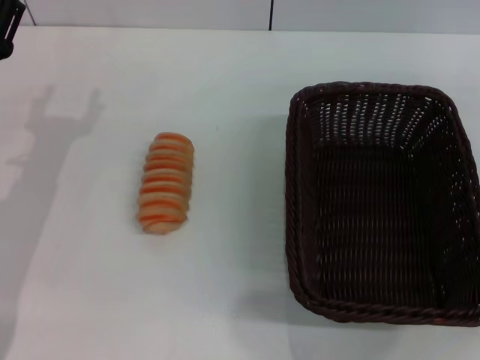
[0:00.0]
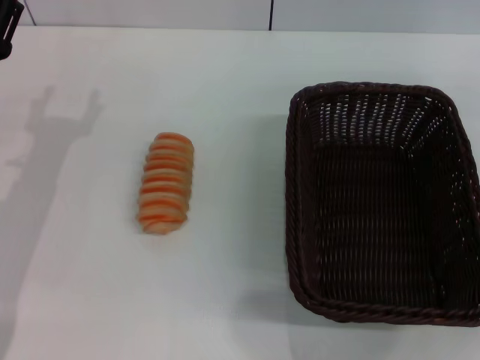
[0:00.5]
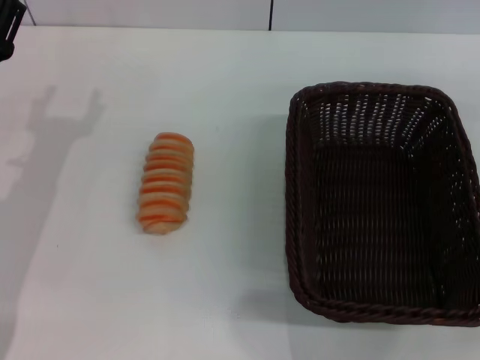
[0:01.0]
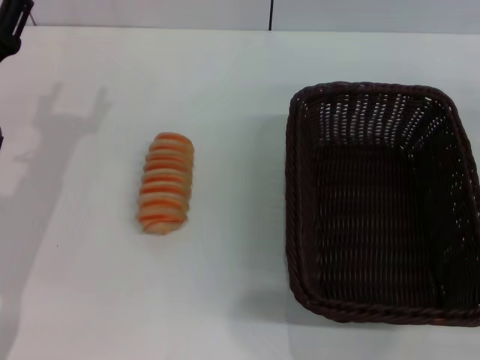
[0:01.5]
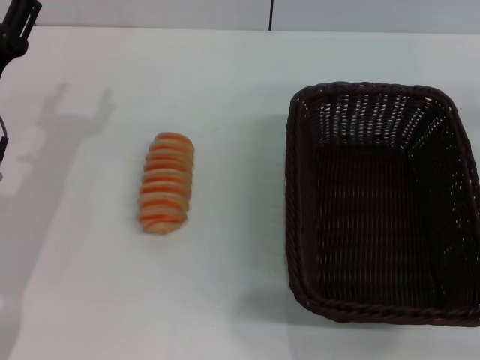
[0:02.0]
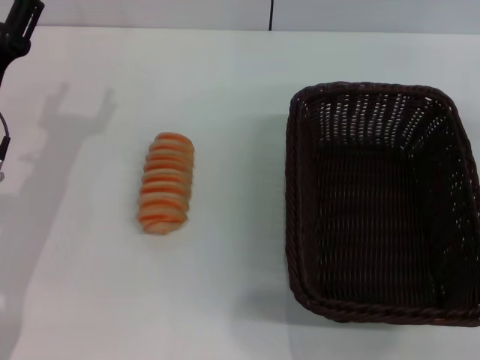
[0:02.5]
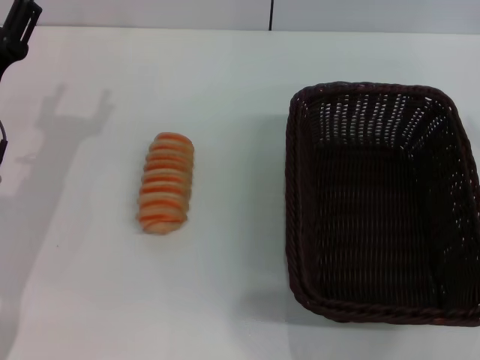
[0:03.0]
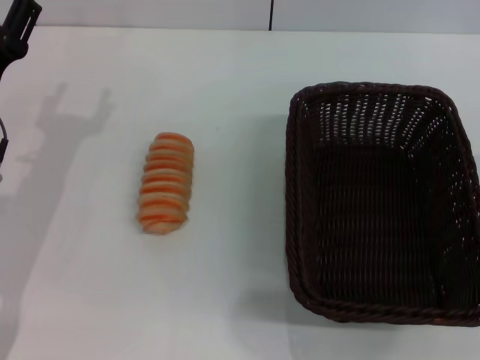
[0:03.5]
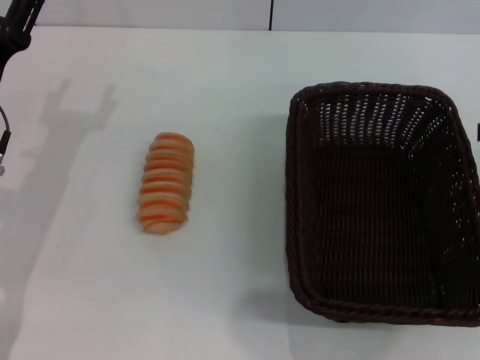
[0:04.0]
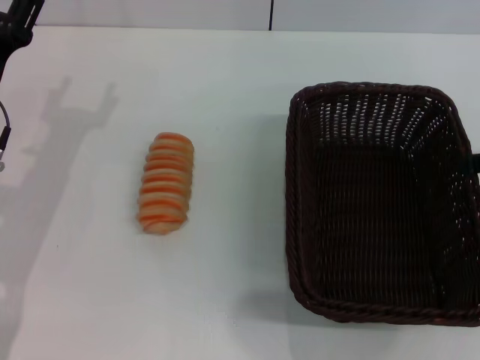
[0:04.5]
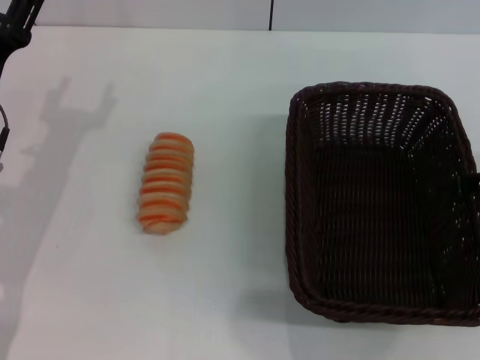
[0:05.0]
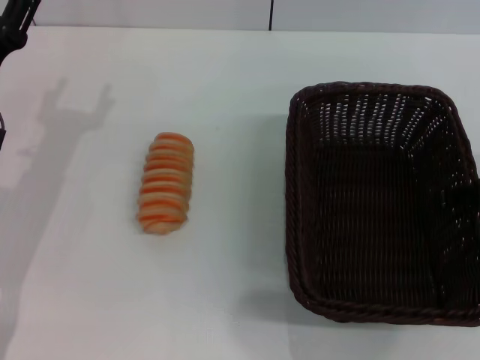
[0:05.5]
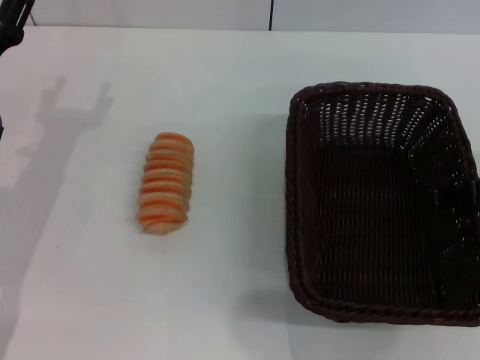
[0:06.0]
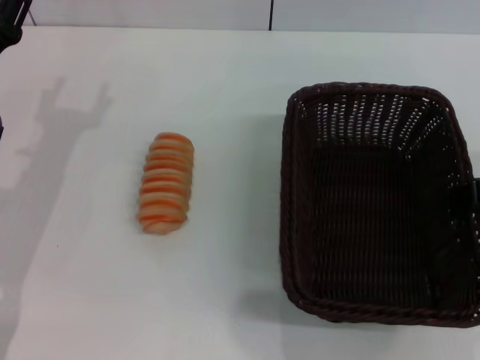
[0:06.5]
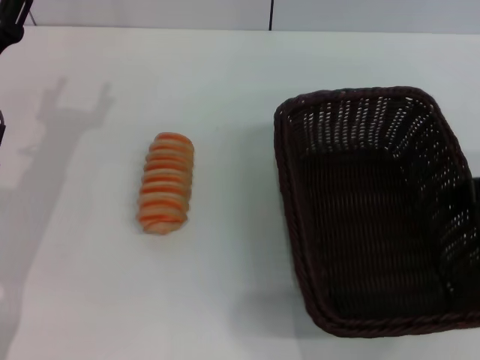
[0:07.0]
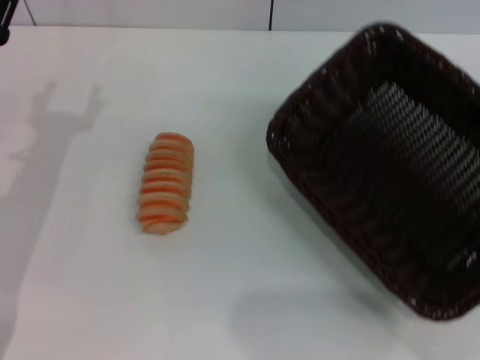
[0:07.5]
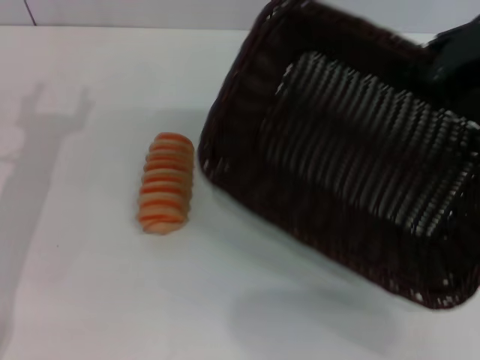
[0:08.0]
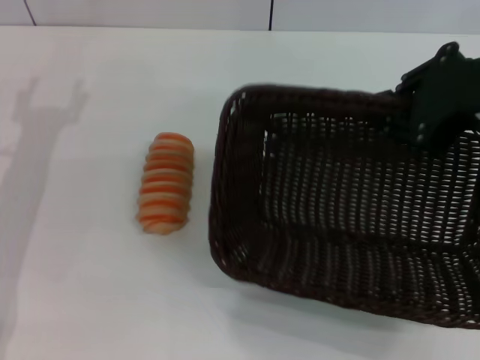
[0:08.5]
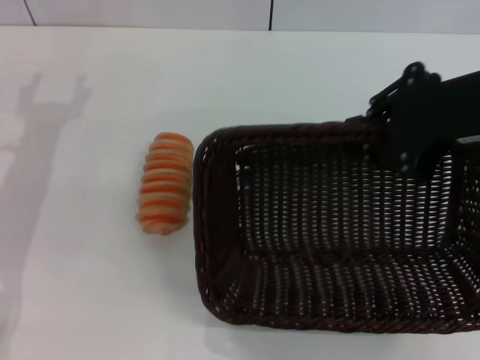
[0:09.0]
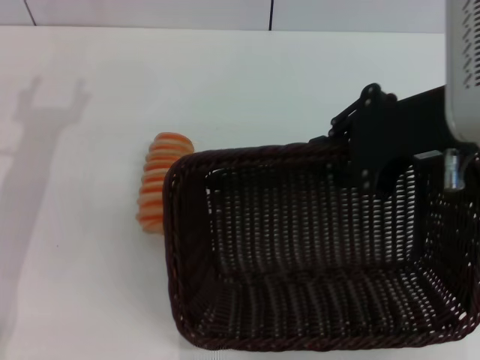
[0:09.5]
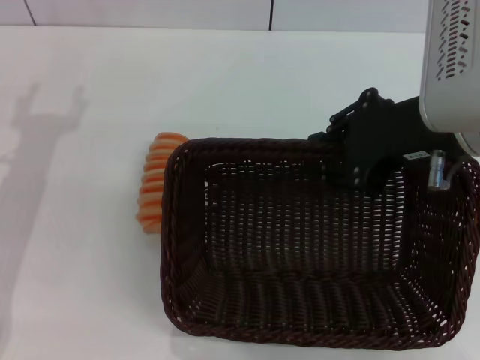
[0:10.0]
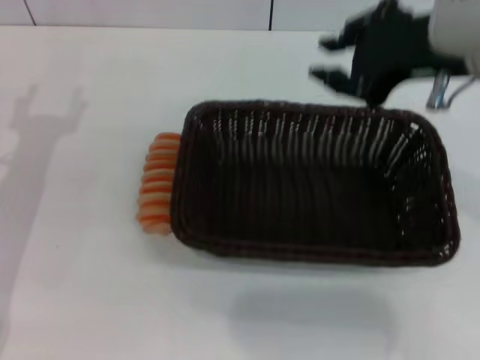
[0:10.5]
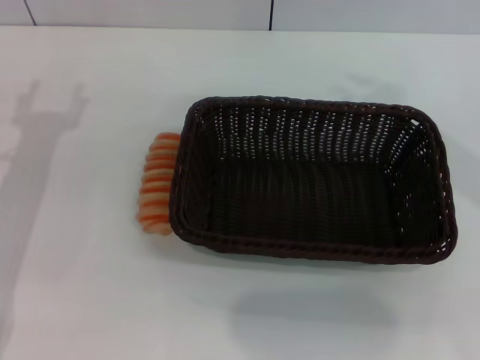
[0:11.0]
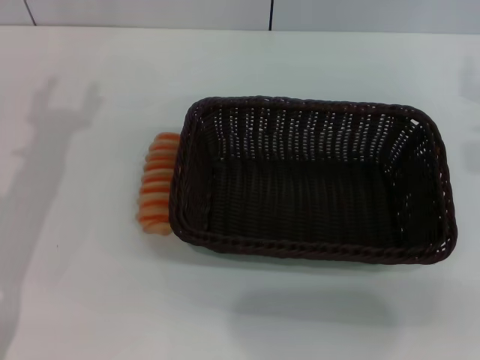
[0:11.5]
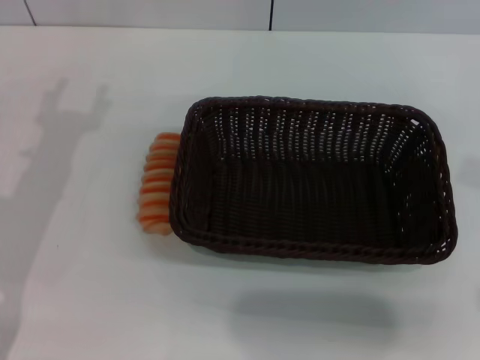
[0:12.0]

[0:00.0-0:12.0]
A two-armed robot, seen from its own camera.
Step, 0:00.0 to 0:07.5: Pick up the dark basket with the right gripper.
Step, 0:08.0 to 0:10.5: Place the dark basket in the center of view with the right gripper.
0:06.0 to 0:08.0: The right gripper is displaced upward and to the left by approximately 10 cm, and closes its fingers.
0:08.0 to 0:10.0: The right gripper heads to the left, covering roughly 5 cm.
0:10.0 to 0:12.0: The right gripper travels to the right by approximately 10 cm.

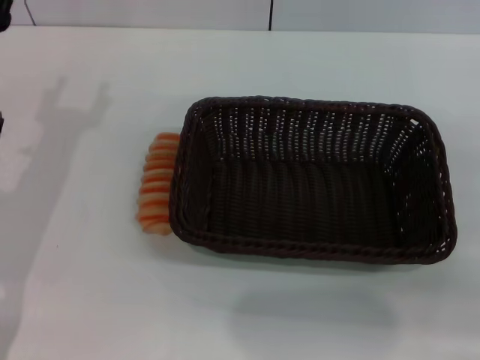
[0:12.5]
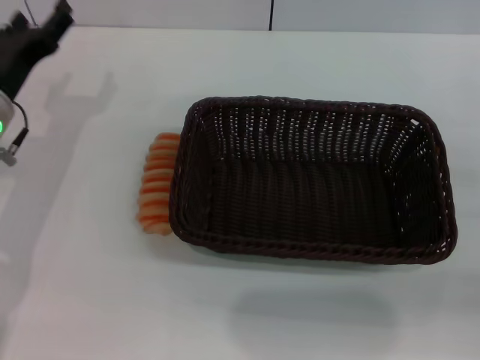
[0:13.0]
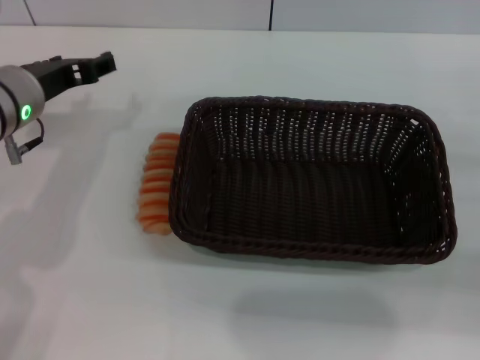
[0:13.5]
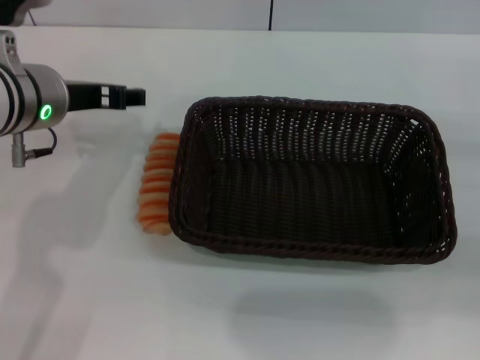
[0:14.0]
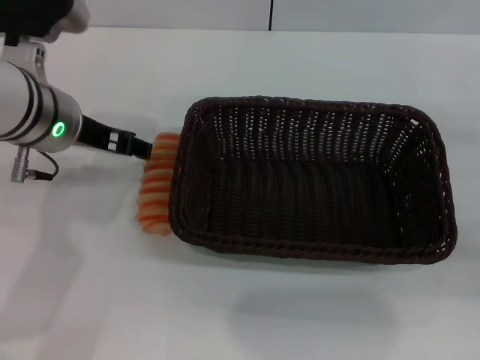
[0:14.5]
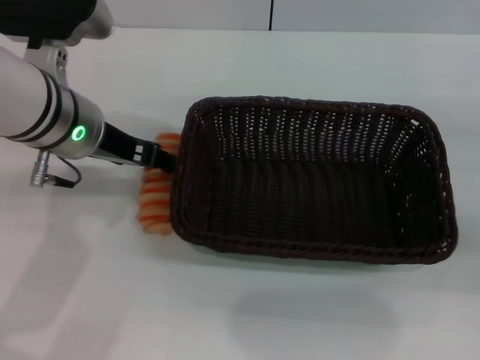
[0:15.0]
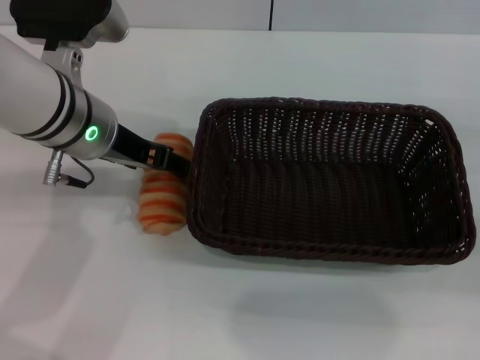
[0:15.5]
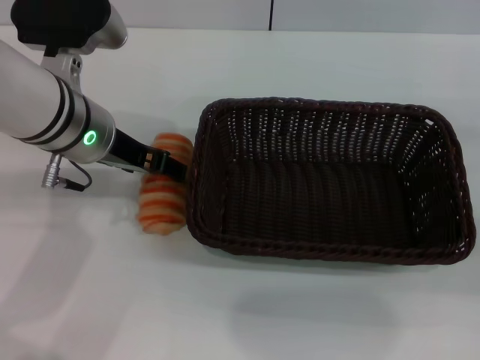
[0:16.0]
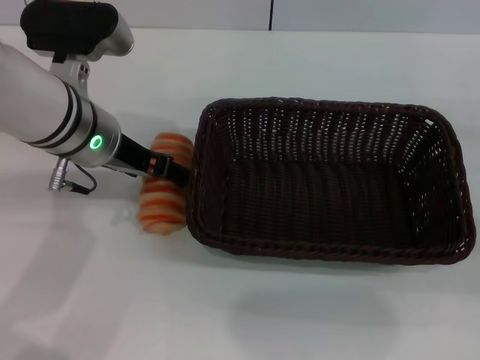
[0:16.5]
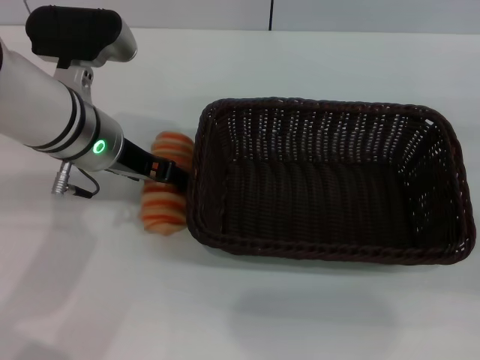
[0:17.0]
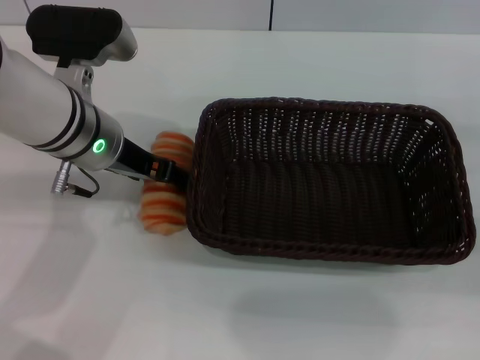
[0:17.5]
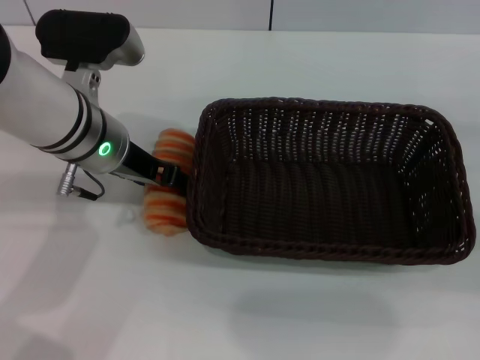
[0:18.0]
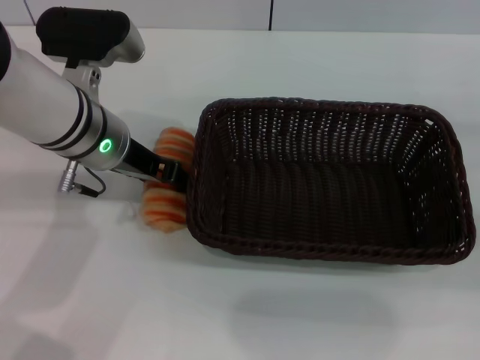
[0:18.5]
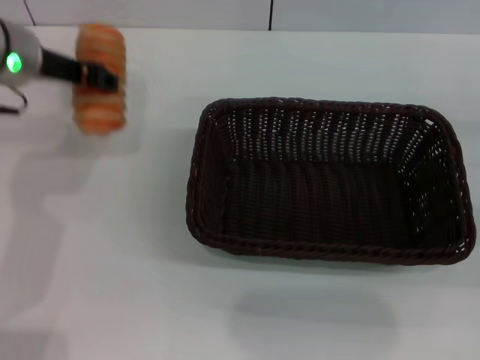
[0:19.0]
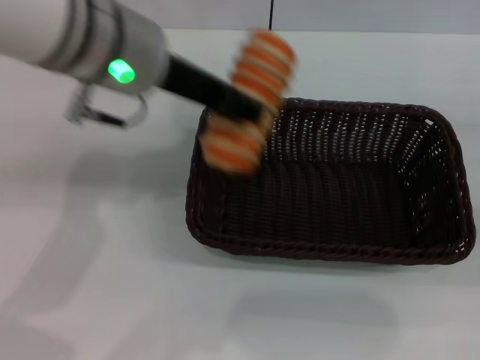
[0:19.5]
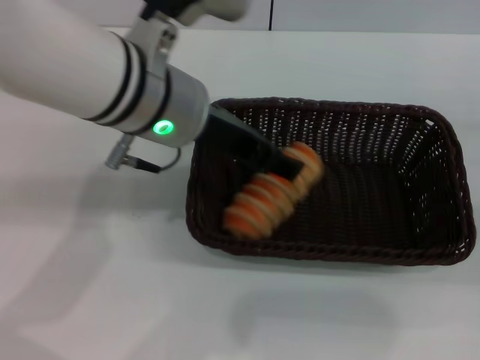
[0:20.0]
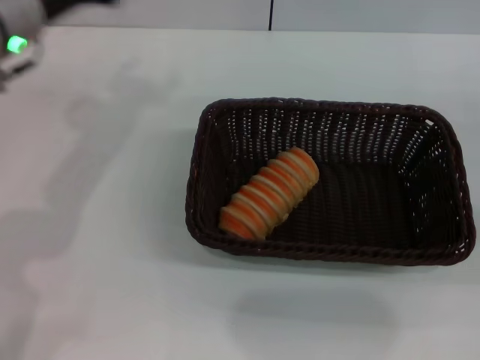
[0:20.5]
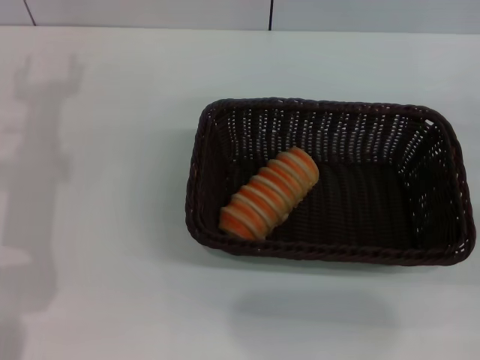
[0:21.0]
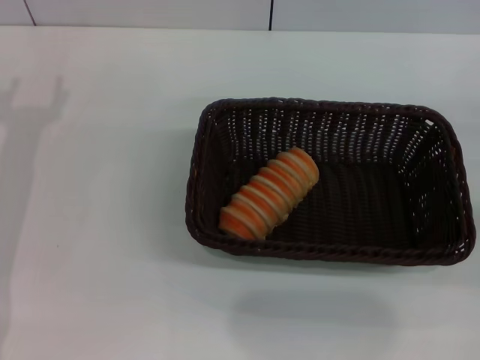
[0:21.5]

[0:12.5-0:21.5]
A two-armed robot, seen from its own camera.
Step, 0:12.5 to 0:18.5: Pick up the long bread with the left gripper.
Step, 0:19.0 to 0:20.0: Place the long bread into the dark basket with the left gripper.
0:12.5 to 0:14.5: The left gripper is displaced to the right and upward by approximately 10 cm.
0:14.5 to 0:17.0: The grippers stay close to where they were, moving slightly.
0:17.0 to 0:19.5: The right gripper opens up. Meanwhile the left gripper moves upward, roughly 10 cm, and closes.
0:19.5 to 0:21.5: The left gripper moves to the left and downward, about 25 cm, and opens its fingers.

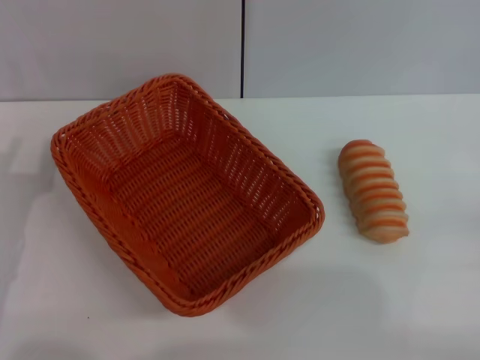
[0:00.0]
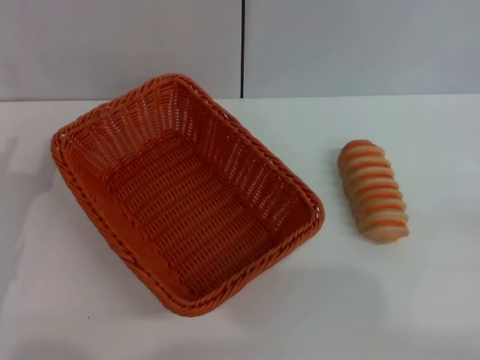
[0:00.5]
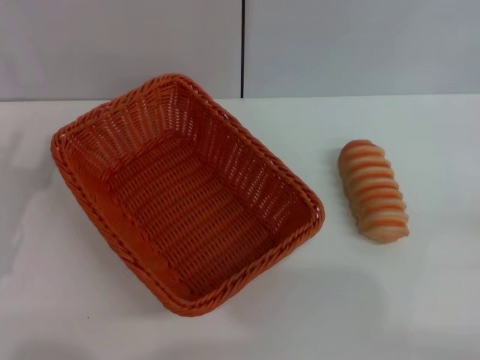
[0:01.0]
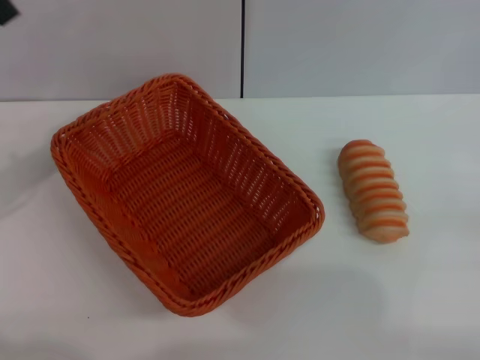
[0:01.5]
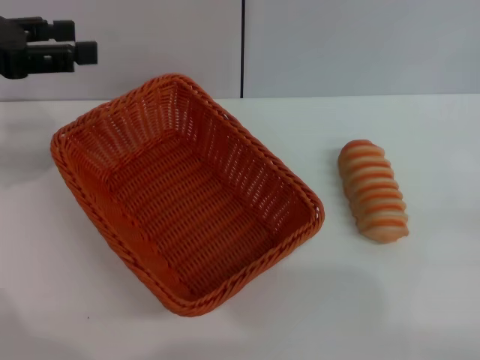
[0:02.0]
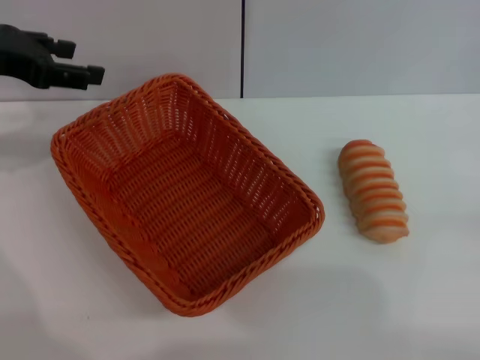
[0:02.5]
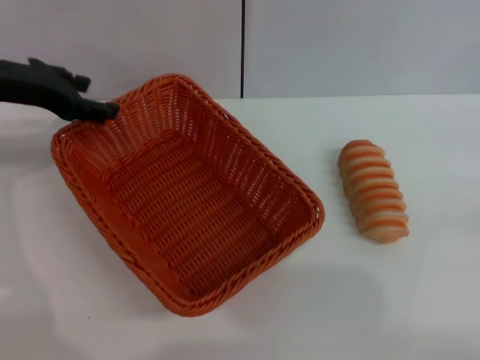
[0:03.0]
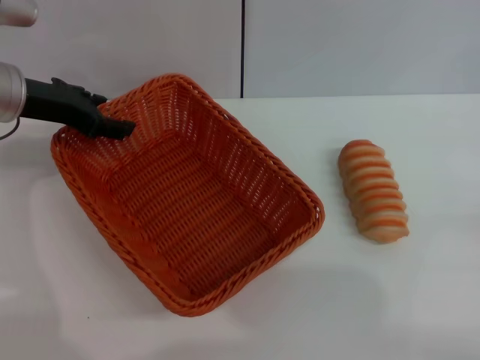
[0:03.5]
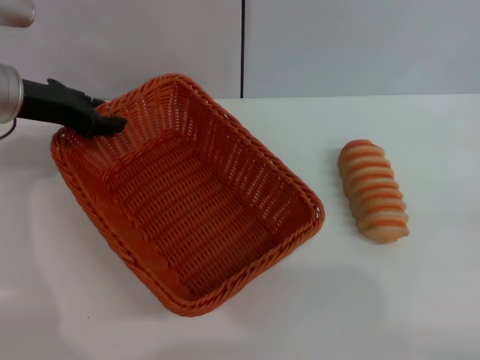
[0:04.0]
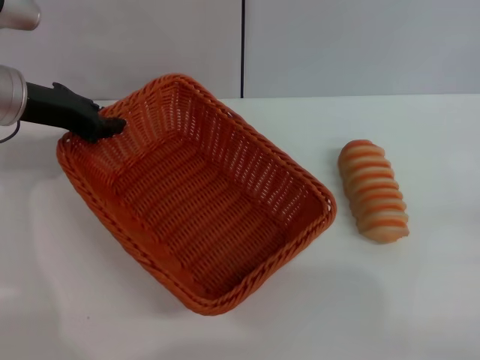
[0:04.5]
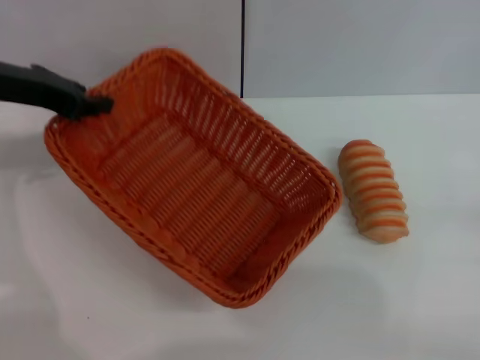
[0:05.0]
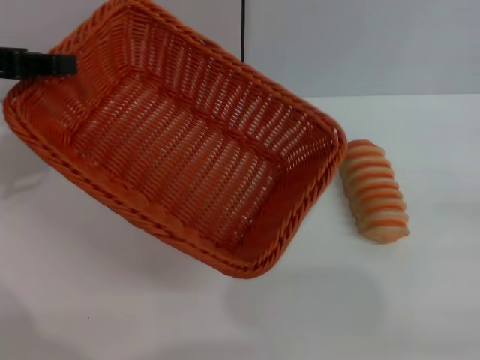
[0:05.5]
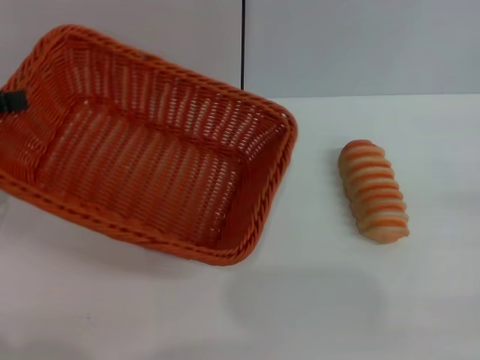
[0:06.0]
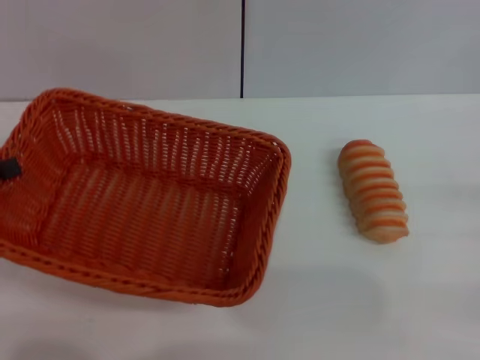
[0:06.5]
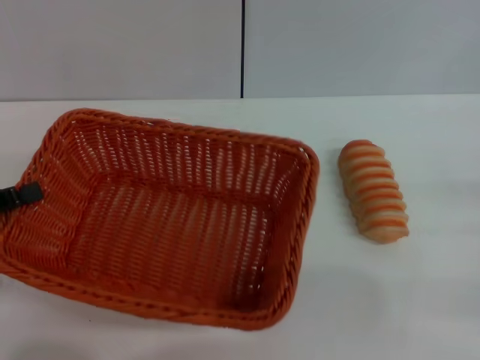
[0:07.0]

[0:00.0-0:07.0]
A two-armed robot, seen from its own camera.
Step, 0:00.0 to 0:05.0: Pick up the light basket with the left gripper.
0:00.0 to 0:02.0: The left gripper goes about 20 cm upward and forward, and opens up.
0:02.0 to 0:03.5: The left gripper is displaced downward and to the right by some 10 cm.
0:03.5 to 0:05.0: The left gripper moves approximately 5 cm, and closes.
0:05.0 to 0:07.0: The left gripper moves backward, downward and to the left, roughly 20 cm.
